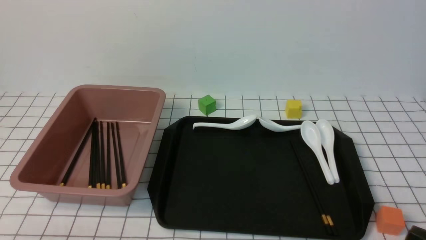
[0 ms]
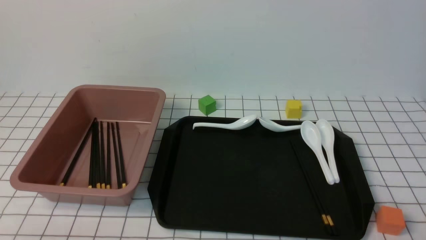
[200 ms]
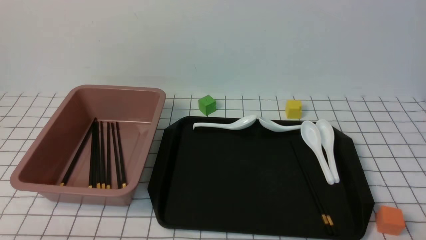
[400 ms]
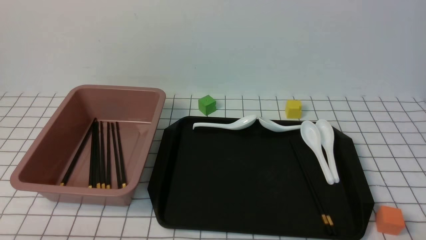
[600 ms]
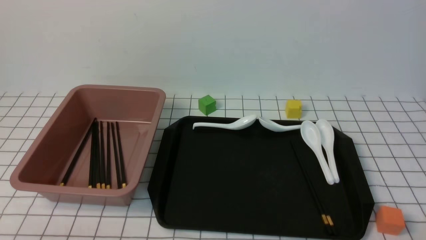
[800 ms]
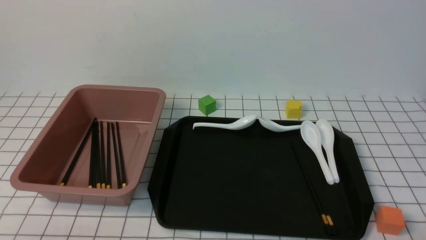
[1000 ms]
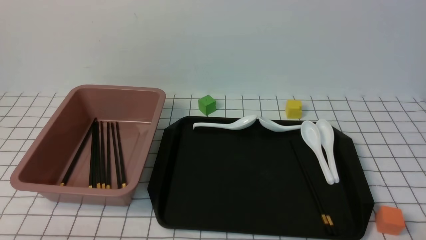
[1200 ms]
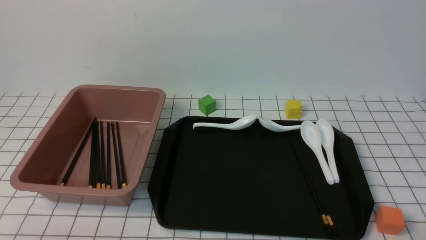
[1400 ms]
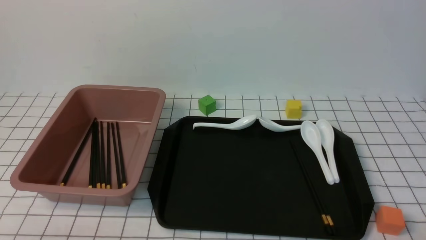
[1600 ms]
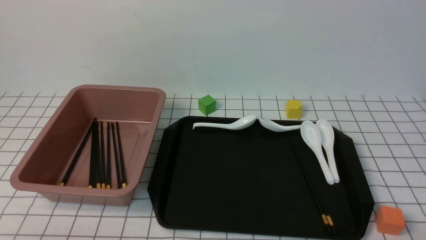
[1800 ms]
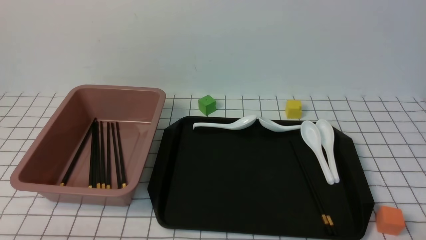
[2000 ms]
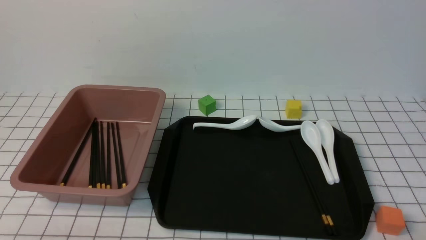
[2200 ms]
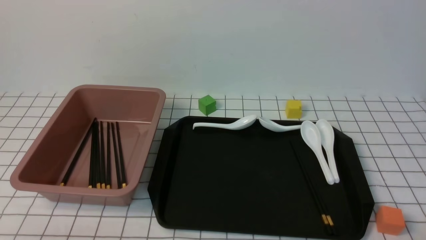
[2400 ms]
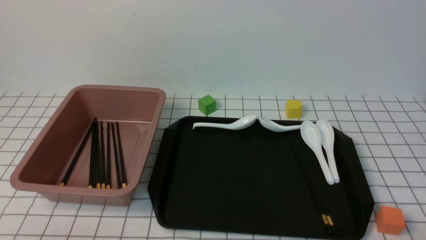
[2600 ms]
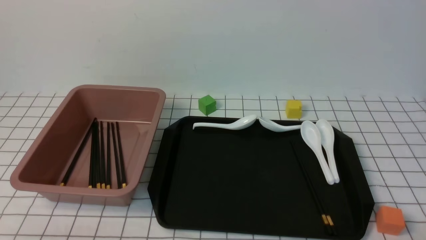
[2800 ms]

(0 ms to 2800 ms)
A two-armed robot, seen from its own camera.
1400 ms - 2800 ms: Both grippers stay about where they are.
